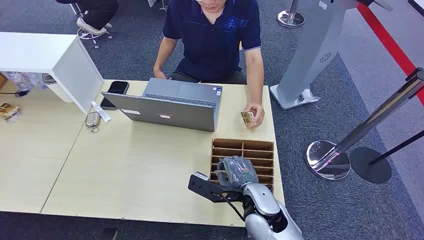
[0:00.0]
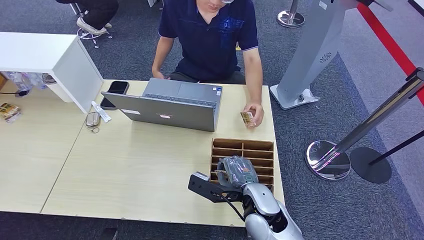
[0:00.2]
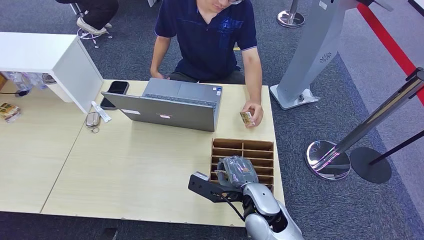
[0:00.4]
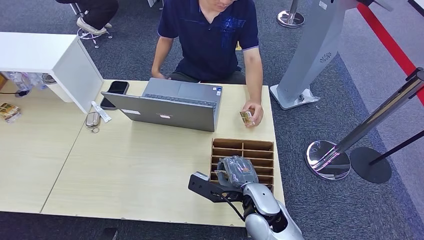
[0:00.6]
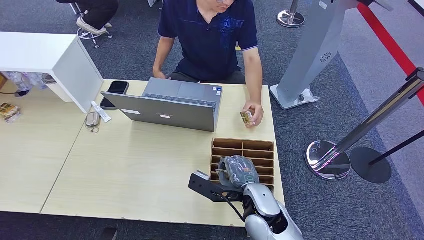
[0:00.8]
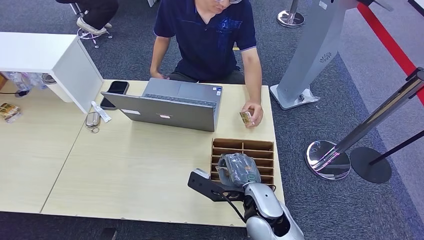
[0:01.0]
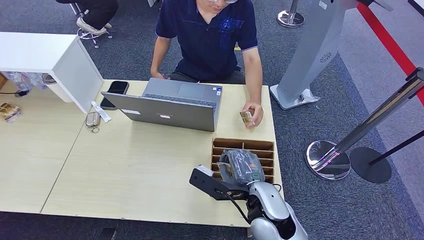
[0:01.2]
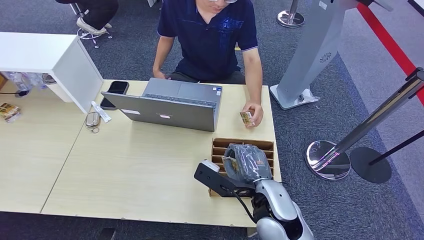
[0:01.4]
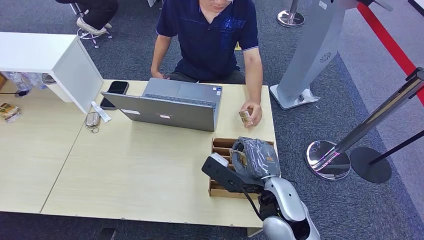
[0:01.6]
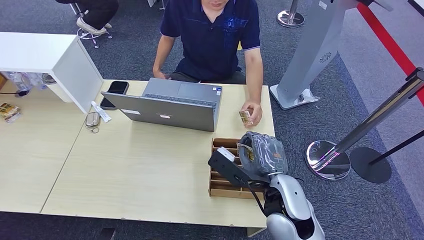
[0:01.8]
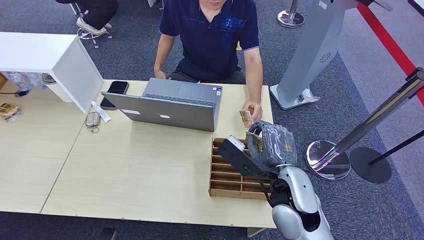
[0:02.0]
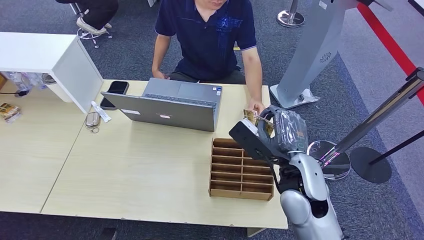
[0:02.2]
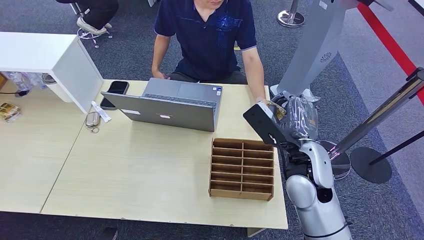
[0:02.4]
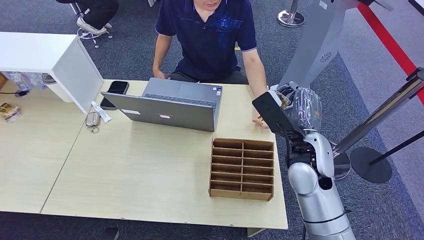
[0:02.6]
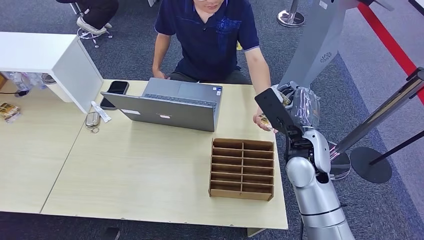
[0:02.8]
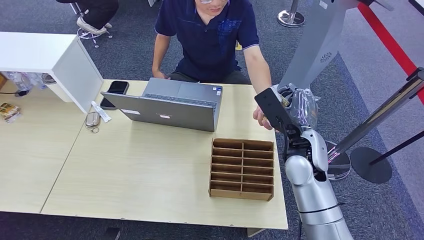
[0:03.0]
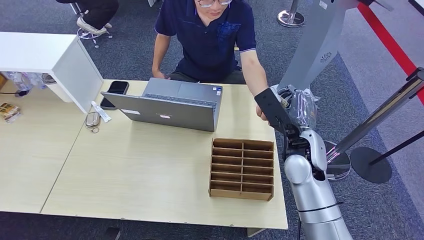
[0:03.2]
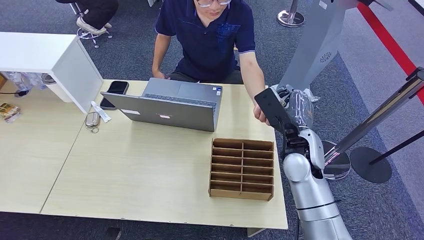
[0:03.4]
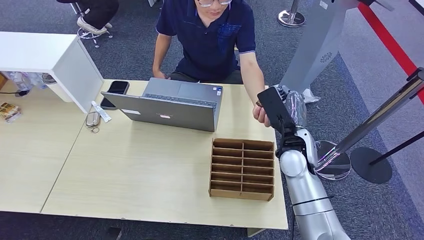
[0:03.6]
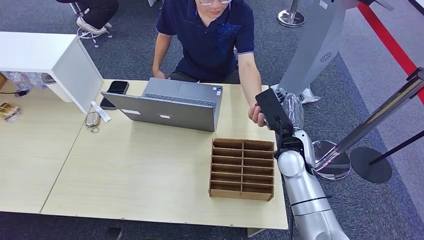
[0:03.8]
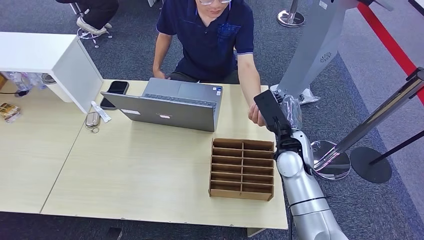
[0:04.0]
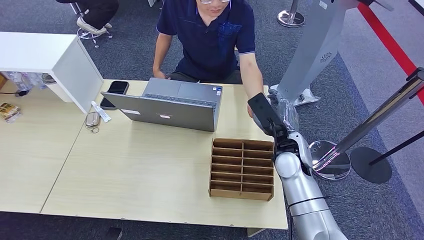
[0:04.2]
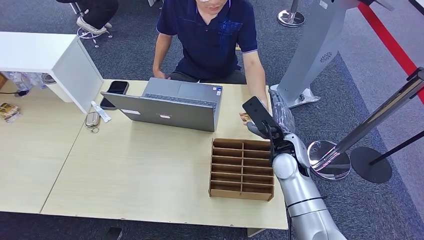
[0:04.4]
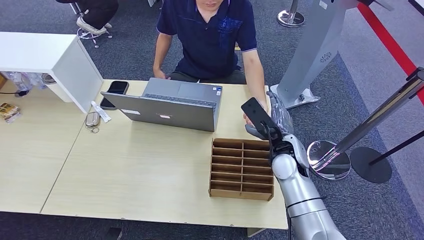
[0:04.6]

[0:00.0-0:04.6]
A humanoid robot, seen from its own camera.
Step, 0:00.0 to 0:01.6: Pick up the key card from the card box.
Step, 0:04.0 to 0:04.6: Hand the key card to the target.
0:01.6 to 0:03.0: The right hand moves forward and to the right, approximately 15 cm.
0:03.0 to 0:04.6: The right hand ends up about 5 cm from where it was.

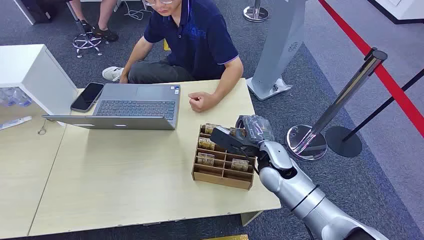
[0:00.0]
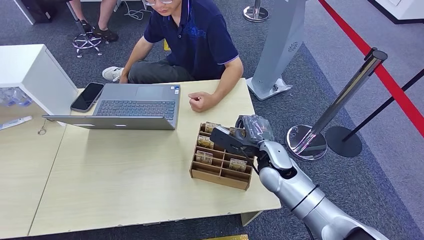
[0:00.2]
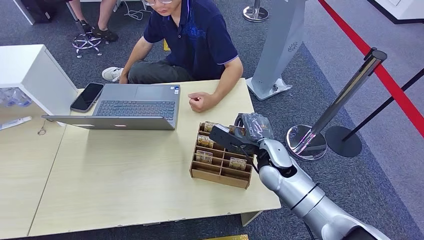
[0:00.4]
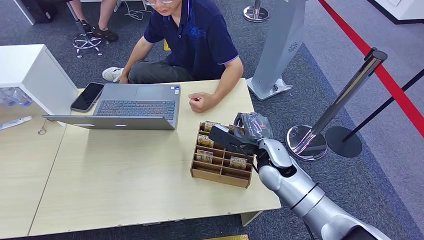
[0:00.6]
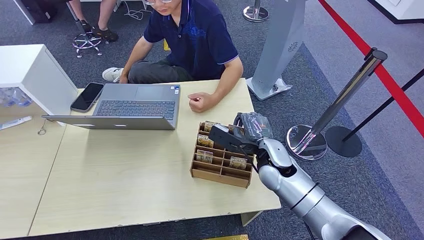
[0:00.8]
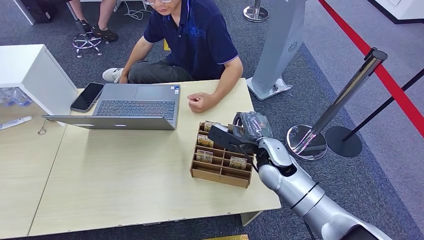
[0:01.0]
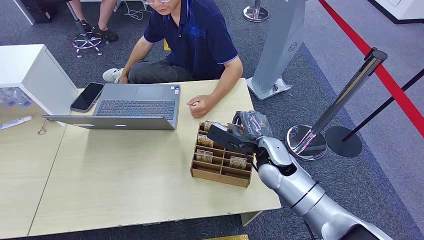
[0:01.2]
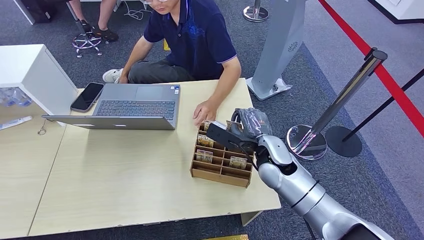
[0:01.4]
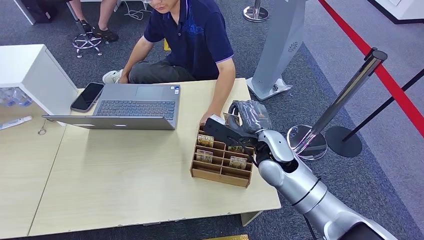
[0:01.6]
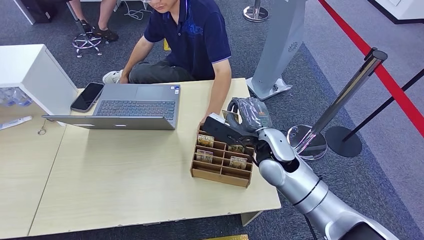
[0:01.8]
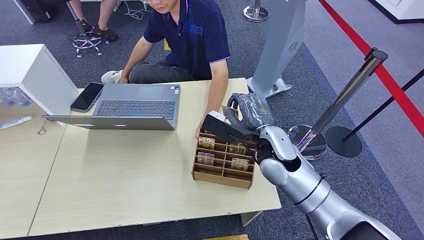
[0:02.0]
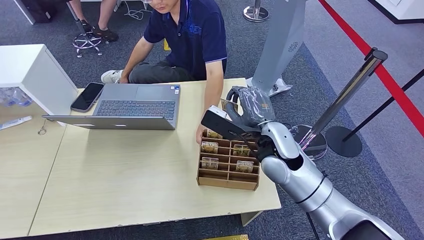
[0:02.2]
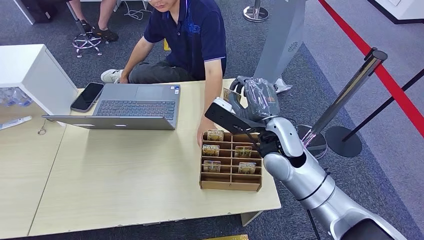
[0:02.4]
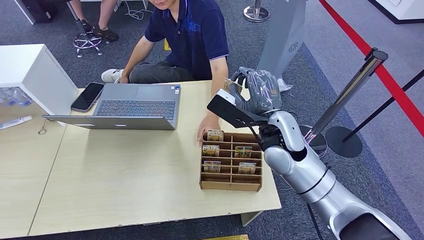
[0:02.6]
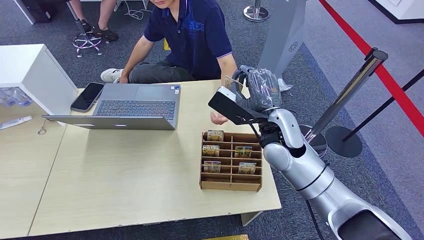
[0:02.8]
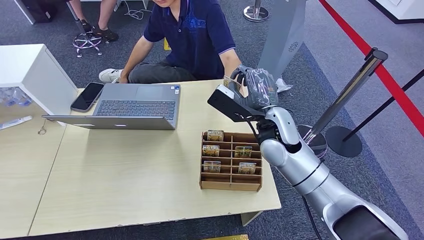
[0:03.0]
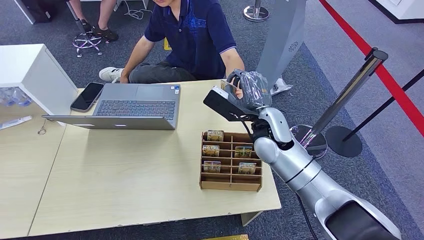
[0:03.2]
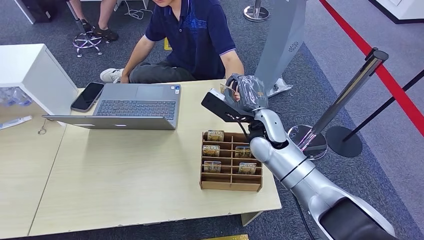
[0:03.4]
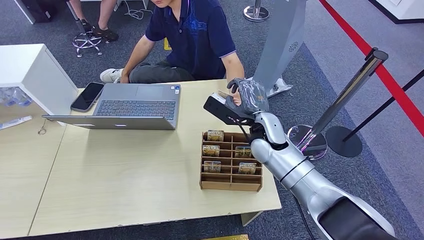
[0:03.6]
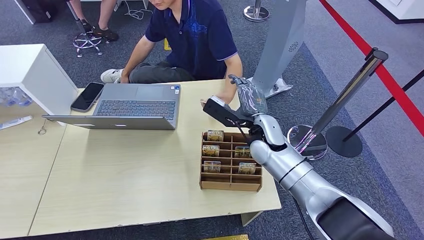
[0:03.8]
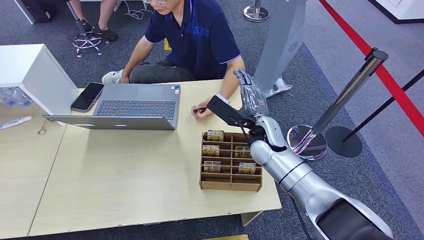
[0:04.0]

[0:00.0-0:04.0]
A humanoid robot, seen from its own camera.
Step, 0:00.0 to 0:02.0: Pick up the key card from the card box.
Step, 0:03.6 to 0:04.0: Hand the key card to the target.
0:01.4 to 0:02.6: The right hand moves upward, some 10 cm.
0:02.6 to 0:04.0: The right hand travels downward and forward by about 10 cm.
